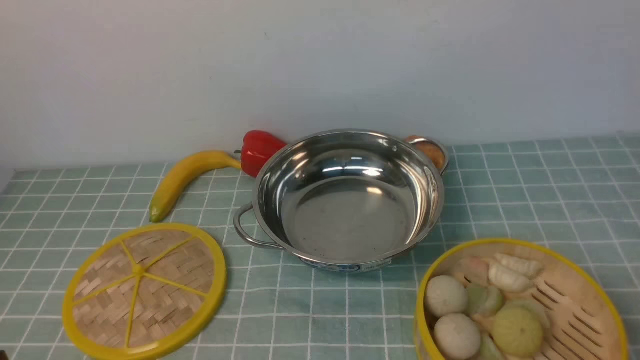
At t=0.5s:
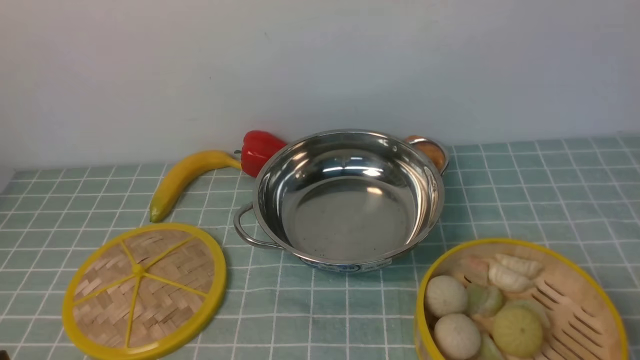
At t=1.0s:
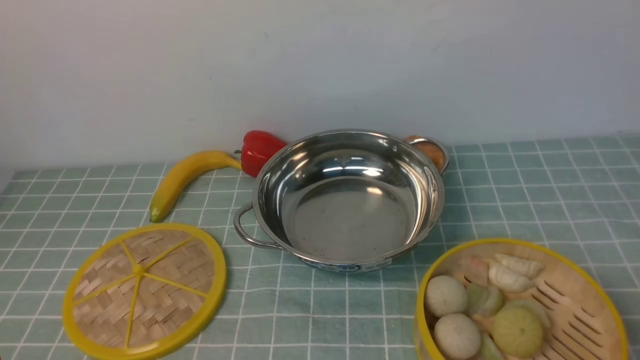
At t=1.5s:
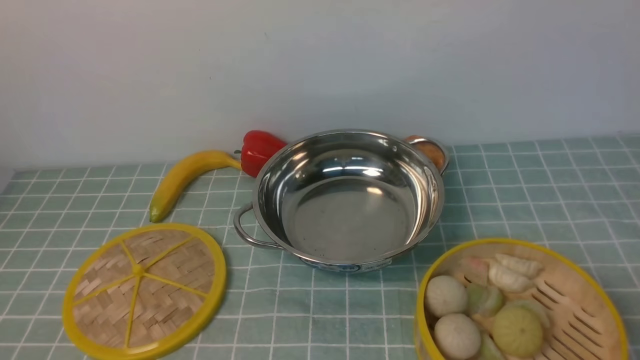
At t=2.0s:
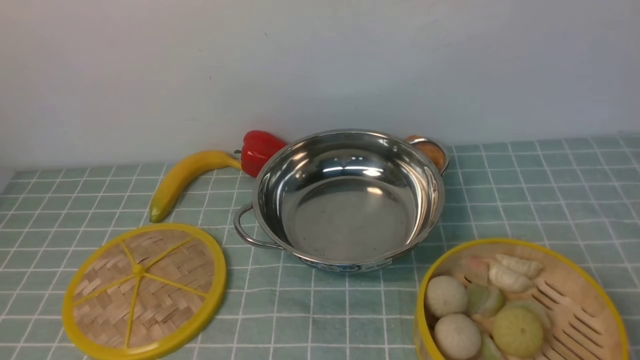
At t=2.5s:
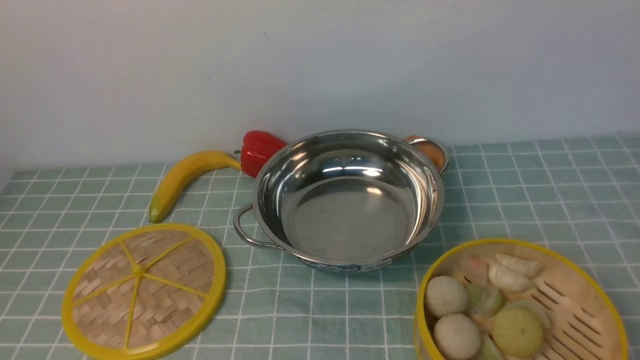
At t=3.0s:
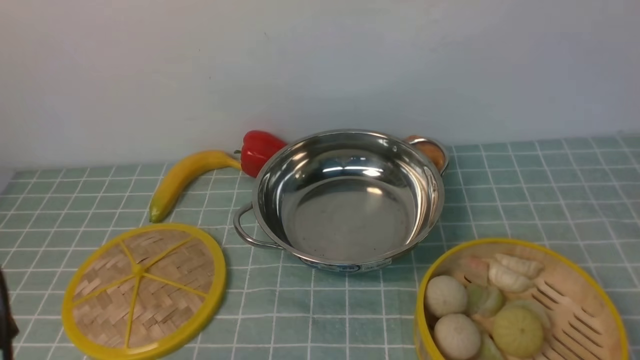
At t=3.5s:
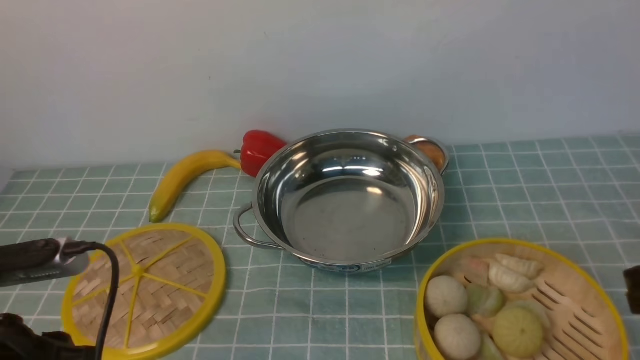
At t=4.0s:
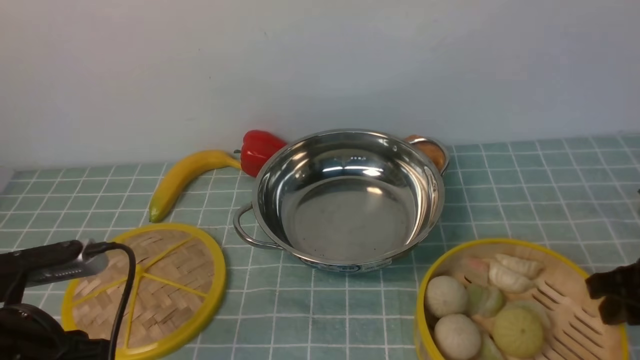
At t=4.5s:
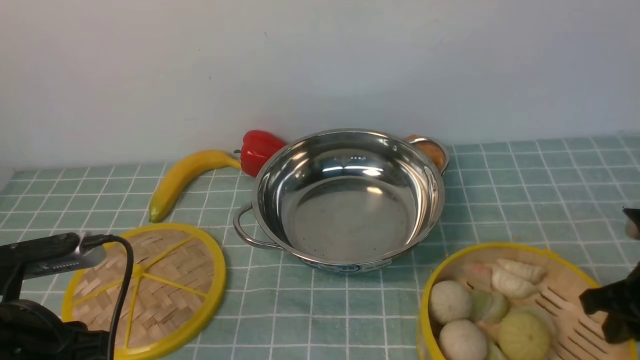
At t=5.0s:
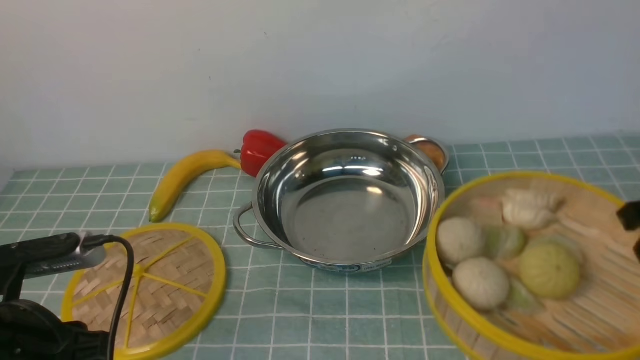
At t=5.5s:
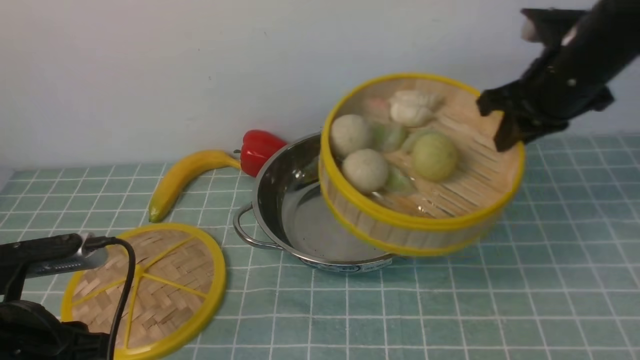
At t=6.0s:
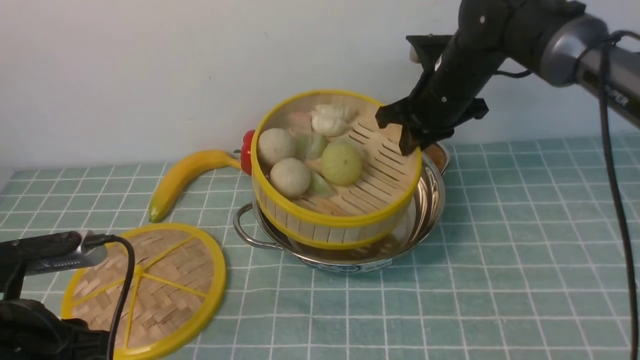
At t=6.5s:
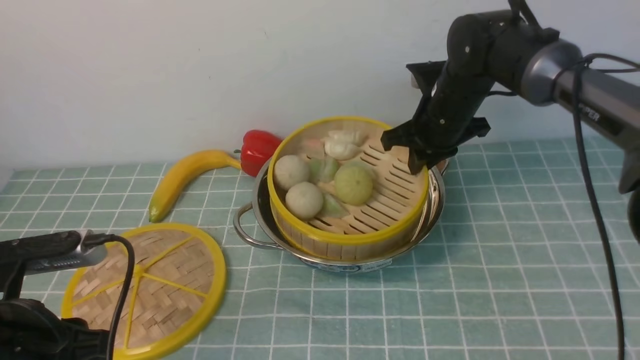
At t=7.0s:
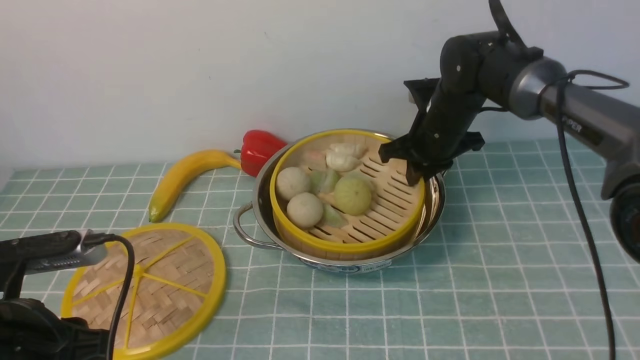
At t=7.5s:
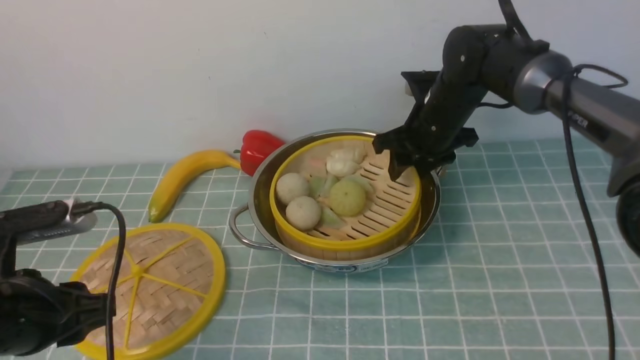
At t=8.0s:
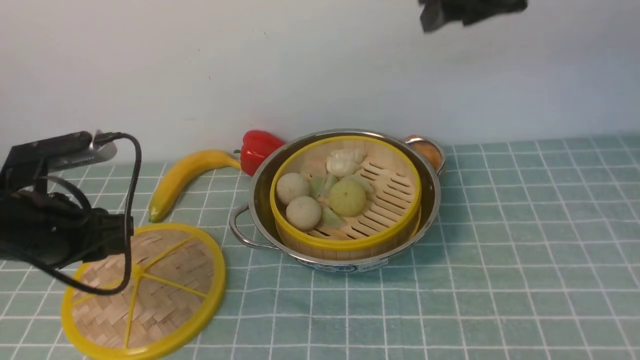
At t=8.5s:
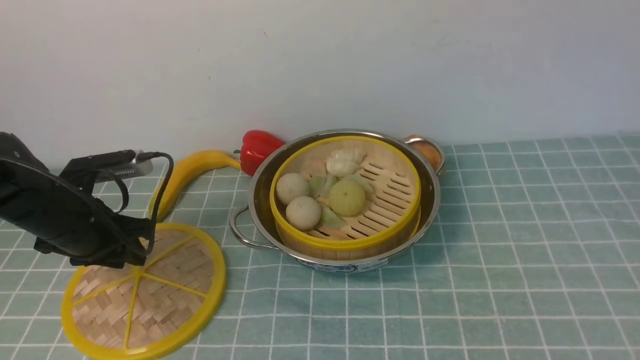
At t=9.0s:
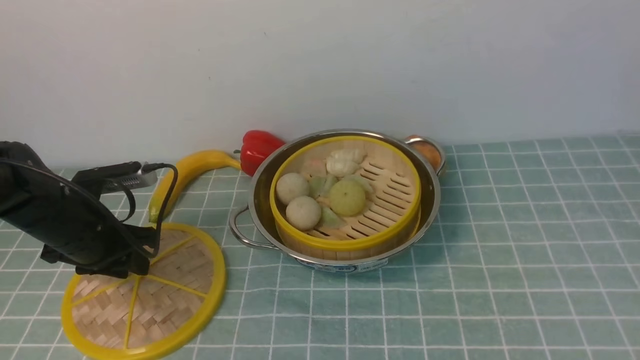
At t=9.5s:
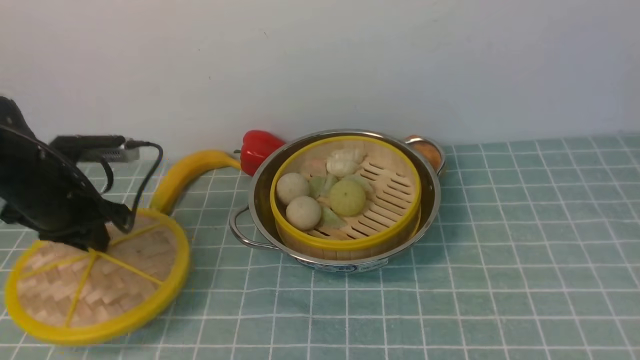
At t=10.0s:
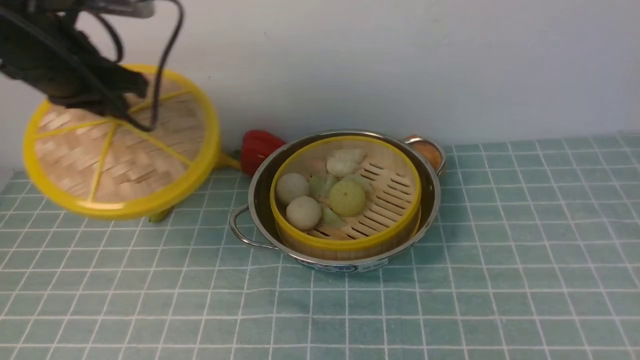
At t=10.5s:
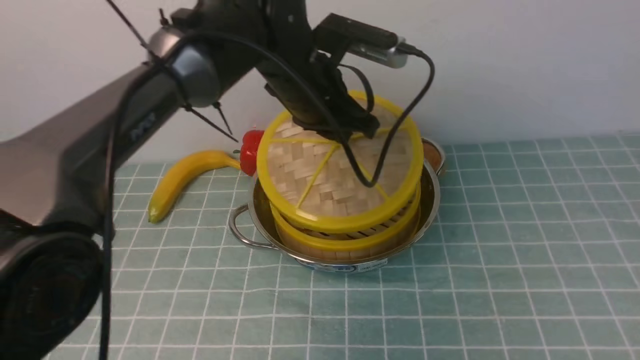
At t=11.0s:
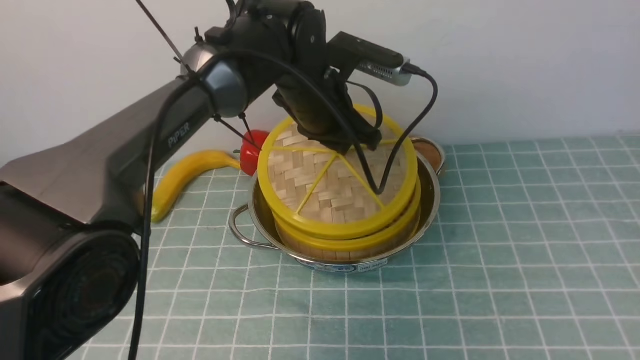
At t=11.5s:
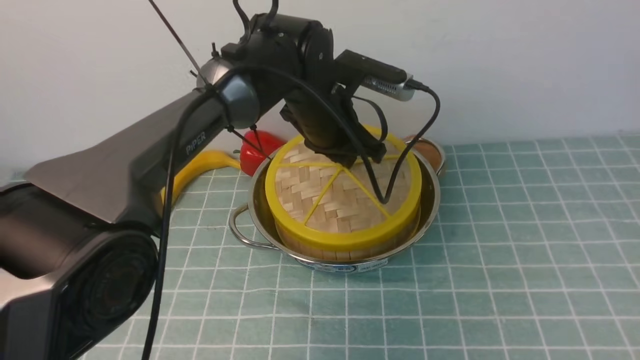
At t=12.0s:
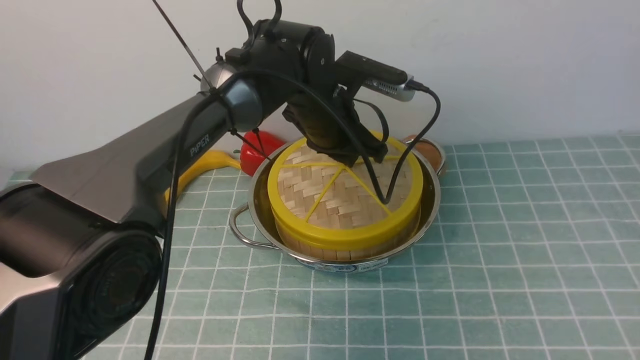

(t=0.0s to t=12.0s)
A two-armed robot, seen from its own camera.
Task of the whole recording: place the steamer in the pot on the blue tablecloth, and put the lid on the steamer.
Step, t=0.0s - t=5.0s: use the right arm to lift the steamer closest to it.
Step, t=5.5s - t=7.5s: use the right arm to put the steamer into the iron steamer pot in the middle.
Step, t=8.0s - t=9.5s: use the left arm to lift the lid of the steamer.
t=2.0s - t=4.0s: The right gripper heads forward, covering some 20 cm; the left gripper is displaced forward by approximately 10 cm.
t=4.0s - t=6.0s: The right gripper goes about 30 cm forward and to the left, and closes its fingers.
t=6.0s - t=8.0s: The left gripper travels forward by roughly 10 cm. The right gripper heads upward and backward, covering roughly 20 cm, and opens.
t=8.0s - t=10.0s: The right gripper moves backward and upward, about 30 cm, while the left gripper heads forward, upward and to the right, covering about 15 cm.
t=10.0s - t=12.0s: The left gripper shifts approximately 25 cm to the right and downward.

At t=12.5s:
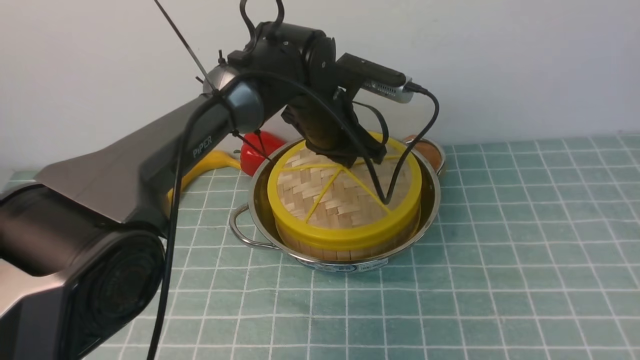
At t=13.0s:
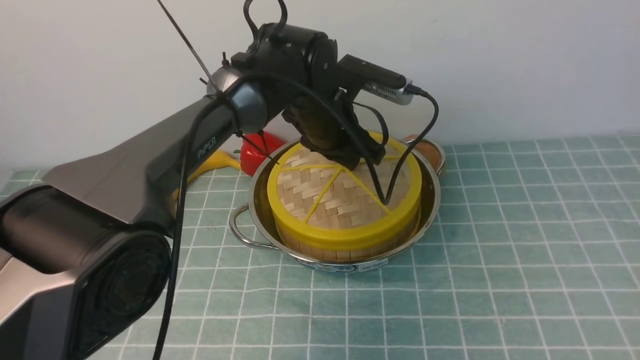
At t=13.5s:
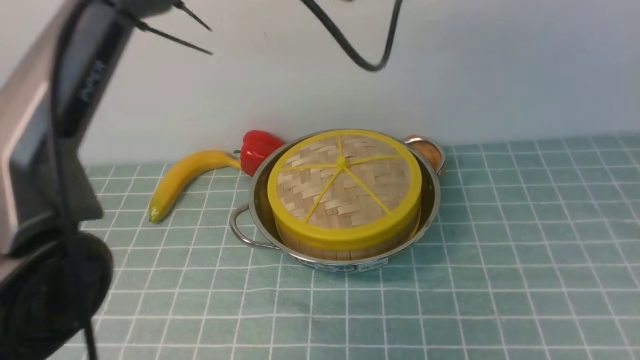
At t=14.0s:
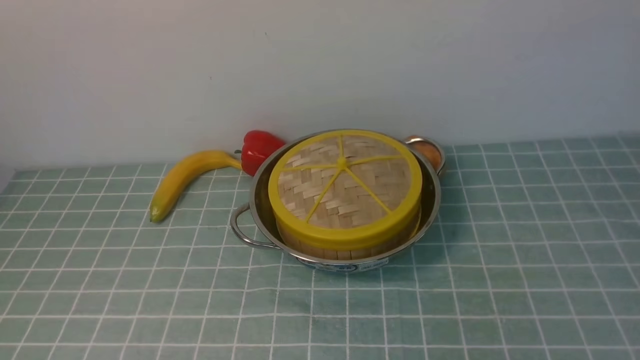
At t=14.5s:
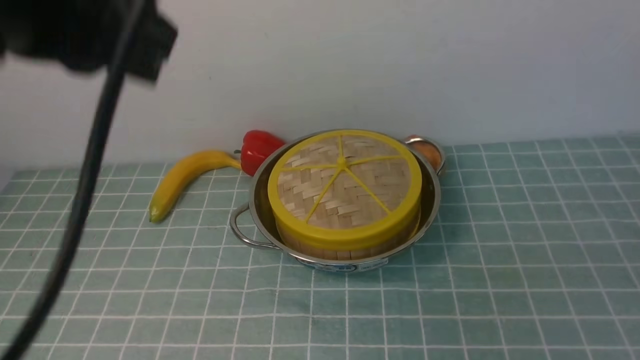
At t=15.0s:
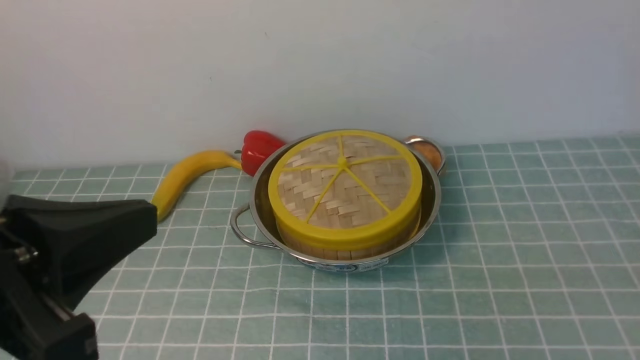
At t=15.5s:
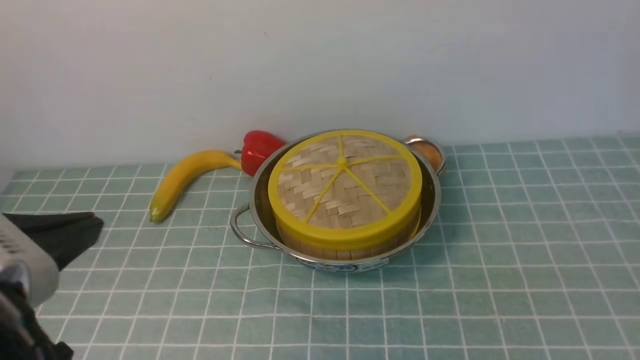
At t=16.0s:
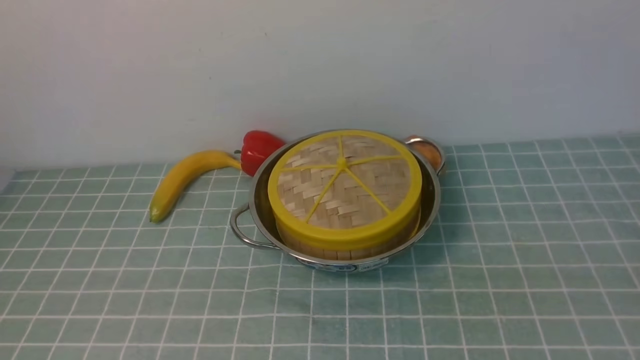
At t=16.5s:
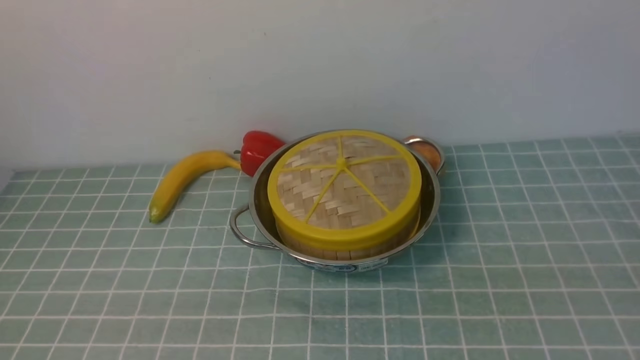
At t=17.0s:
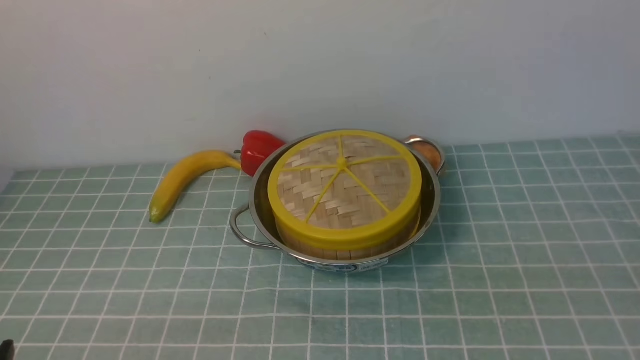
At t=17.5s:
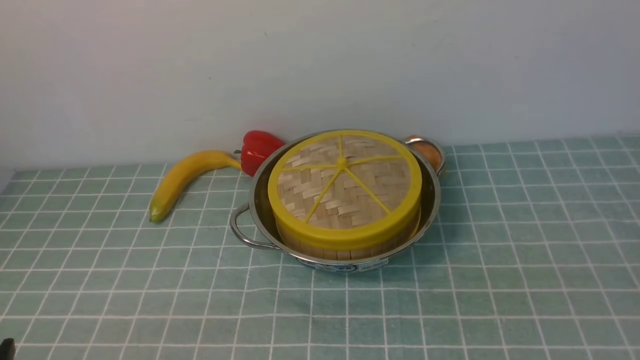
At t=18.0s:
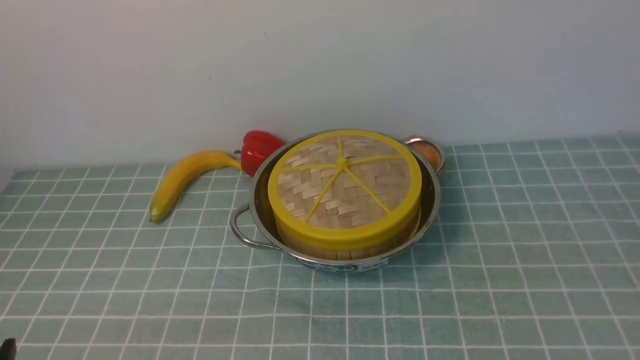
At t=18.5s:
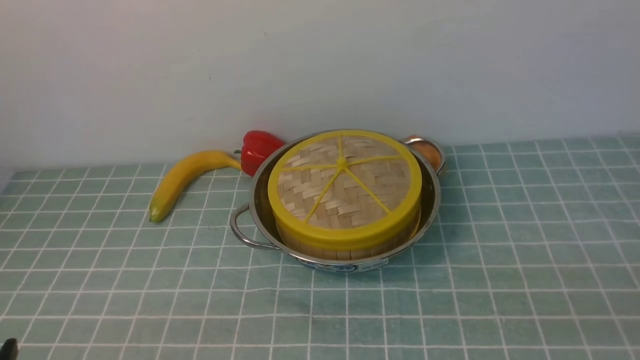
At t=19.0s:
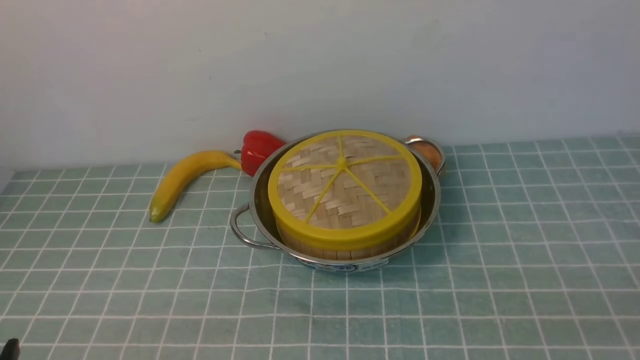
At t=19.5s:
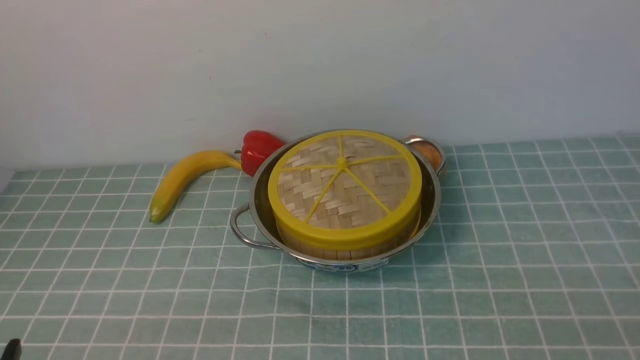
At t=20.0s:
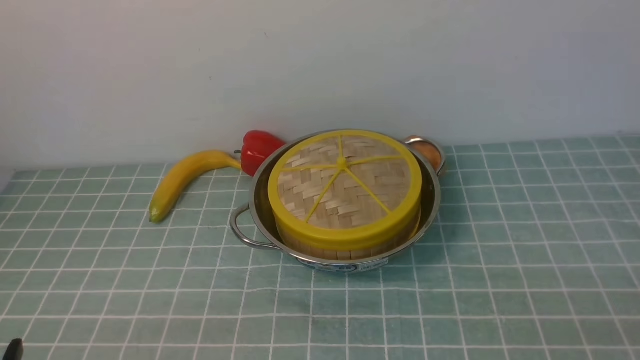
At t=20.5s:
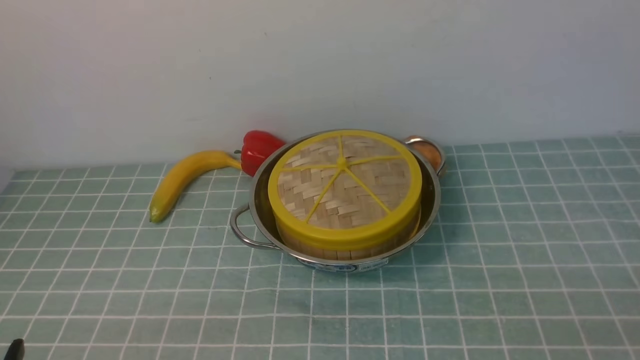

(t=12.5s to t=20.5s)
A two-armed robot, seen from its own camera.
Task of the whole recording: place the steamer in the pot on the blue tablecloth, and put the lid on the steamer.
t=12.5s - t=14.5s: The right gripper shifts approximately 20 cm downward, and closes. Meanwhile the left gripper travels backward, upward and to the left by roughly 40 cm, and opens, then closes again.
t=14.5s - t=16.5s: The left gripper shifts some 30 cm downward, backward and to the left.
